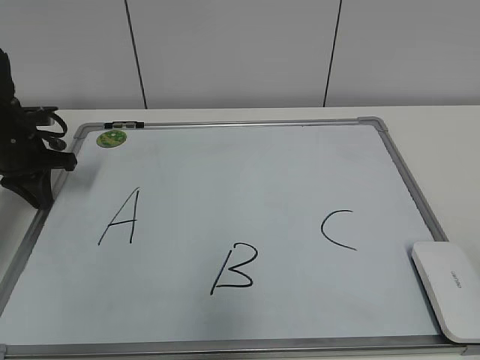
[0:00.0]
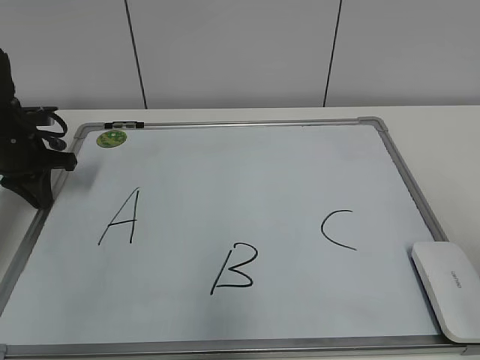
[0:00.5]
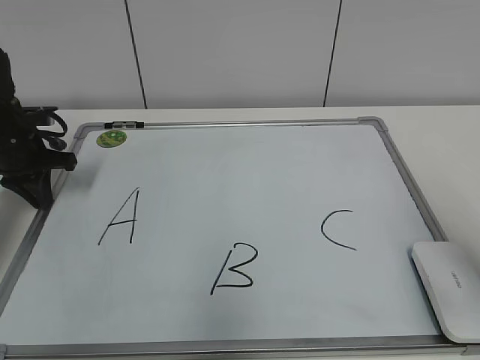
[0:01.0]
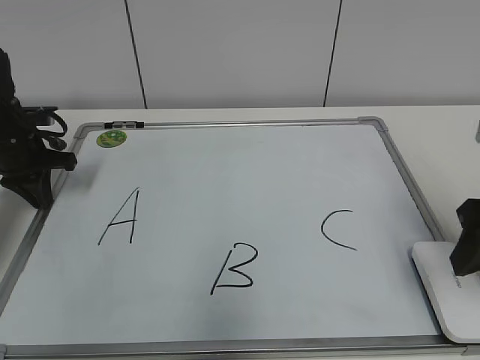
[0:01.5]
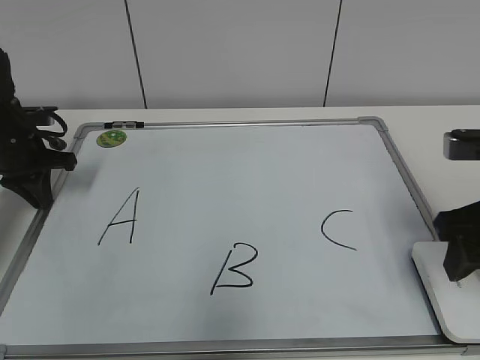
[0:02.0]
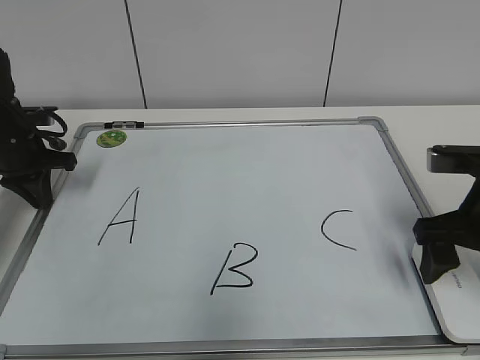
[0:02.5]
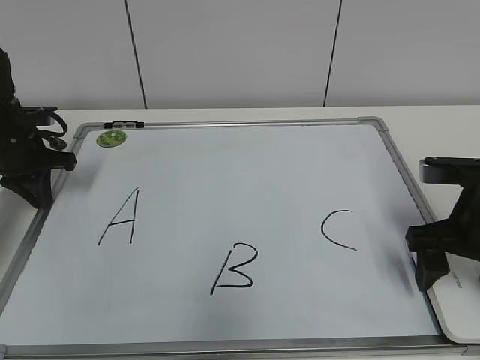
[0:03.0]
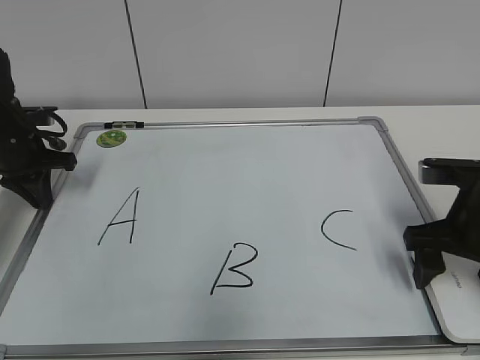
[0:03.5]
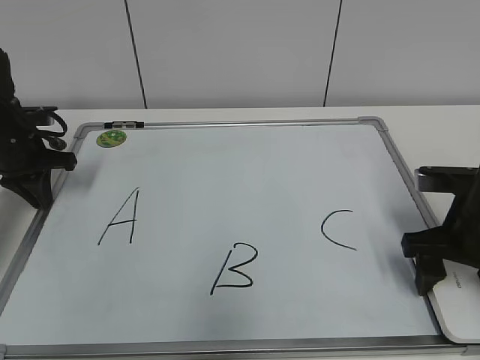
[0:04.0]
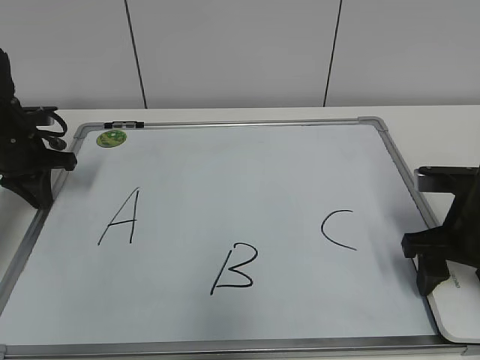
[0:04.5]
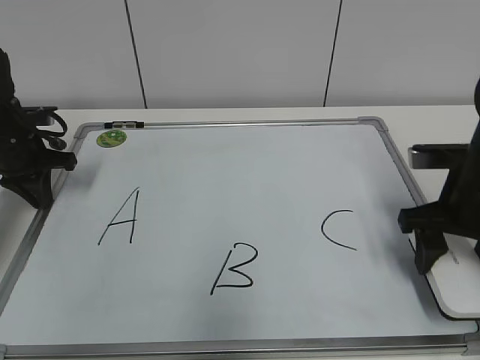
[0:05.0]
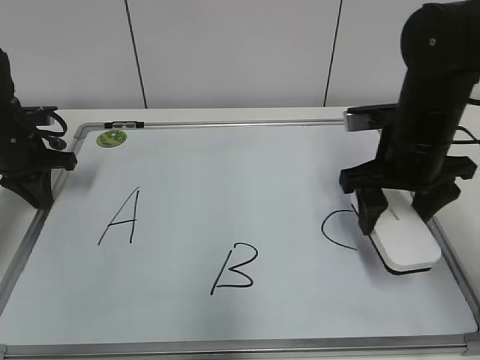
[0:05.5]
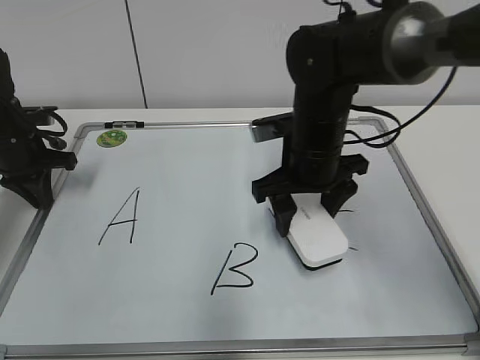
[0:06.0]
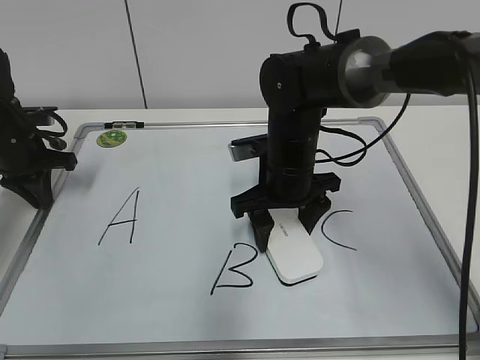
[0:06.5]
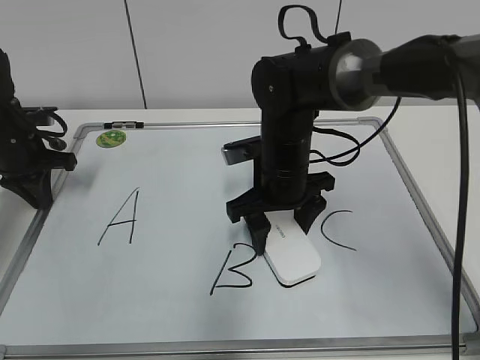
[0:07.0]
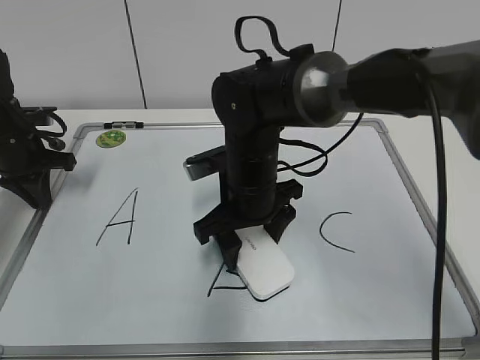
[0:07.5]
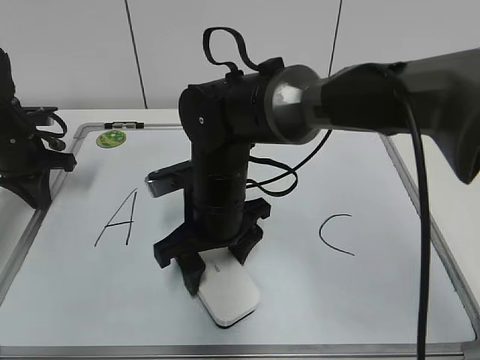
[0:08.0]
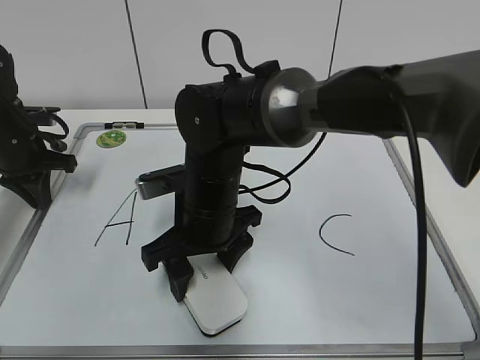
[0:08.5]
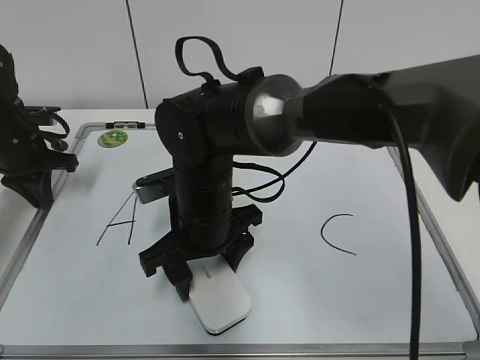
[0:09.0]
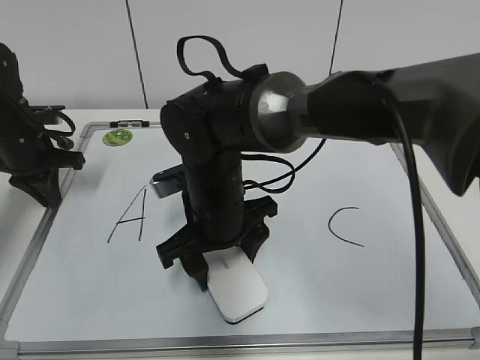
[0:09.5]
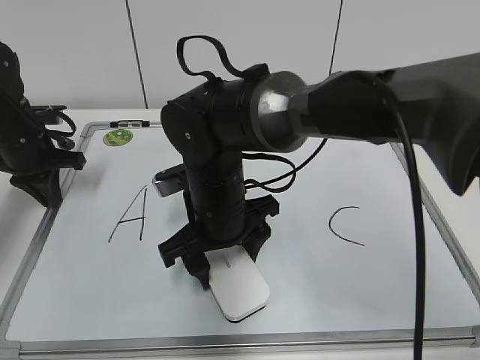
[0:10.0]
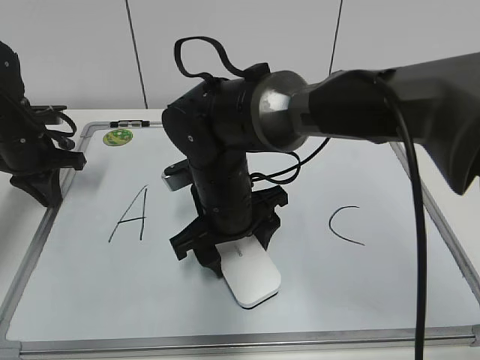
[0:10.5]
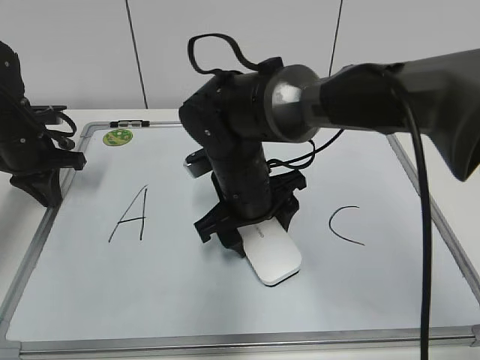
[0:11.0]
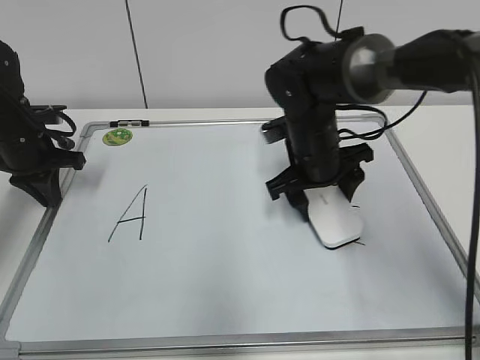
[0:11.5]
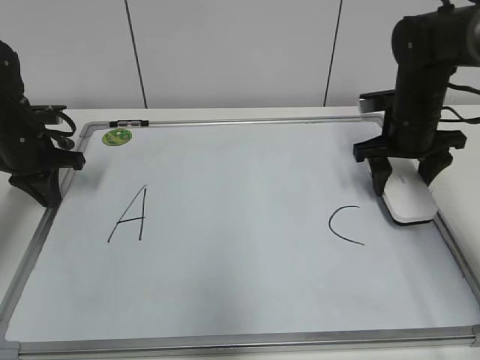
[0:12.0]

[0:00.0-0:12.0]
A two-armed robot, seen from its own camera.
Task of the whole recording: pick up the eraser on the blackboard and erase the letter "B".
Step, 0:00.0 to 0:04.5: Grab the eraser with your right hand.
Step, 0:05.0 to 0:11.0: Erase the letter B with your right hand.
0:00.0 to 0:02.0: The right gripper goes some 25 cm forward.
0:02.0 to 0:04.0: The right gripper shifts about 5 cm downward, and opens up.
0:04.0 to 0:06.0: The right gripper is displaced to the left and forward by about 20 cm, and closes its fingers.
0:06.0 to 0:08.0: The right gripper travels to the left by roughly 10 cm.
0:10.0 to 0:12.0: The right gripper heads to the right and forward, covering about 30 cm.

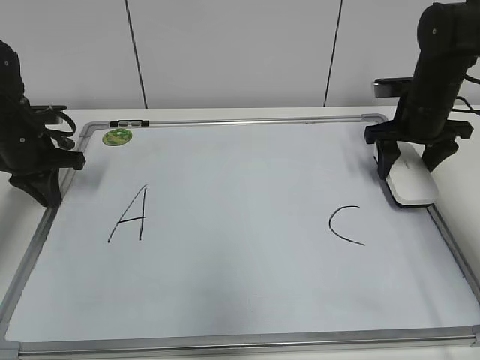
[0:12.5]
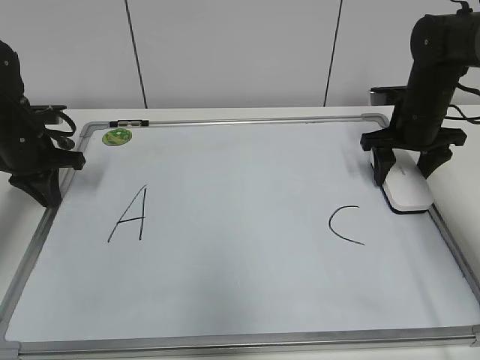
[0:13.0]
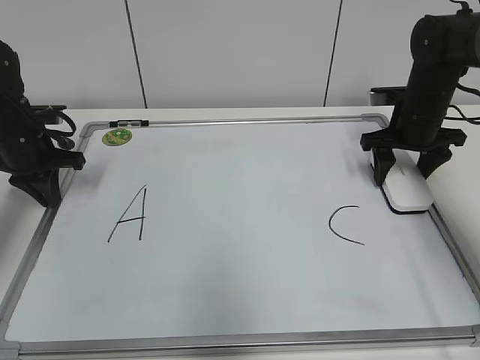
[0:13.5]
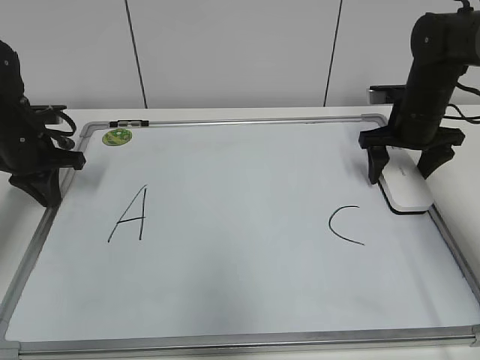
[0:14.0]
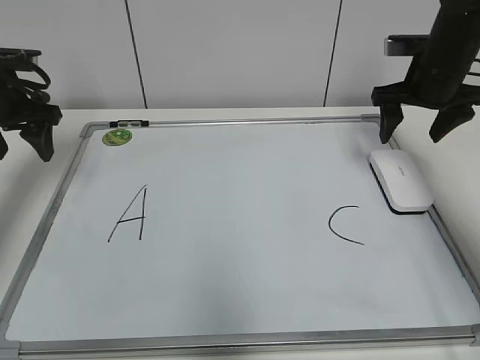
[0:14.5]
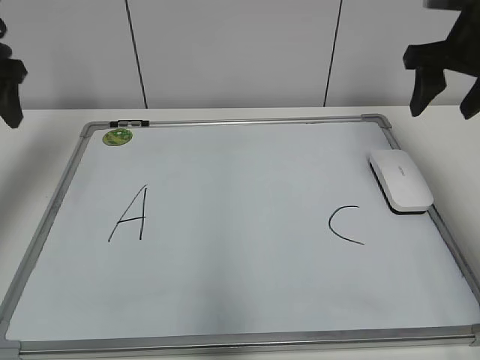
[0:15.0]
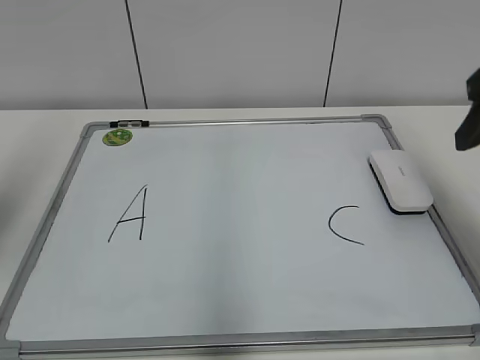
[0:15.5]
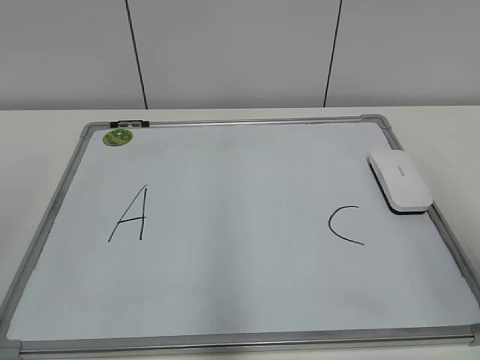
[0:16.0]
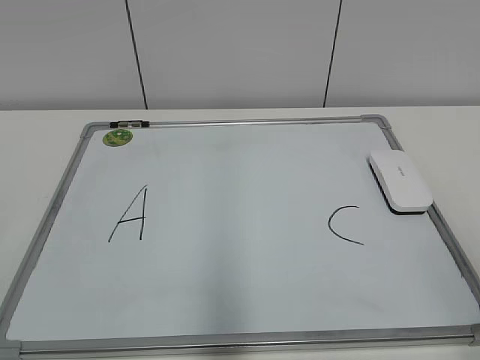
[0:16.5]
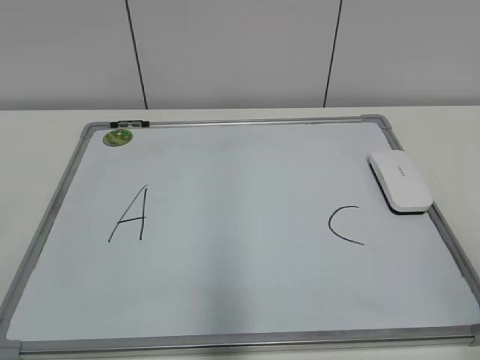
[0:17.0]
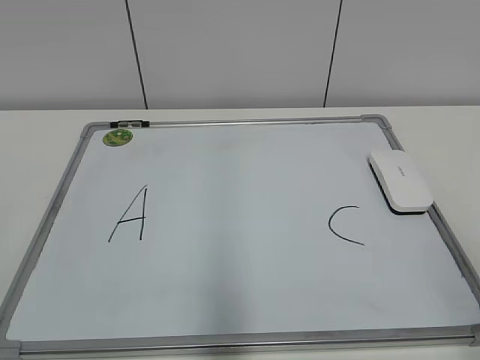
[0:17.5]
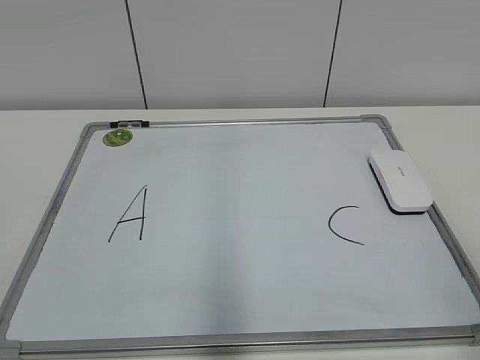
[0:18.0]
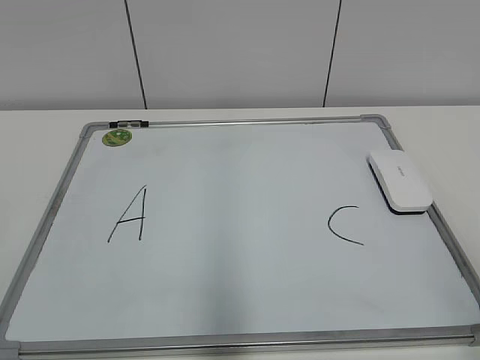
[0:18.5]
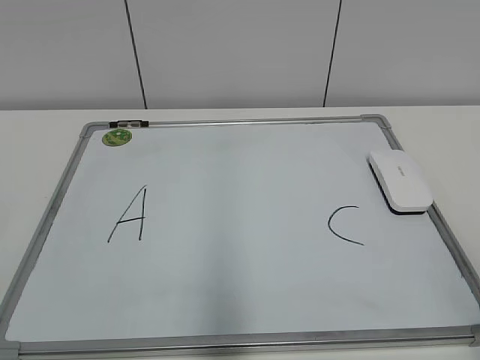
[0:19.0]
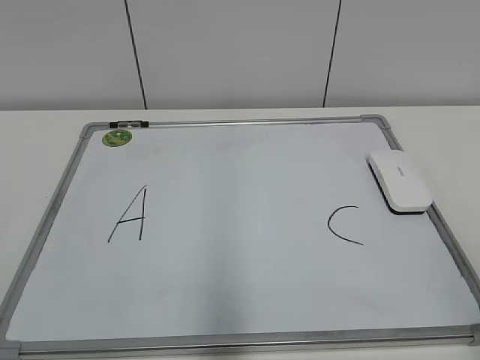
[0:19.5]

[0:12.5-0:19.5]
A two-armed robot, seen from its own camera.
Task of the whole recording: pick up the eraser on the blackboard and erase the letter "B".
0:12.5 to 0:14.5: The grippers both shift upward by about 5 cm. The right gripper opens up. The left gripper opens its fingers.
0:14.5 to 0:16.0: Both grippers move backward, about 35 cm. The right gripper closes its fingers.

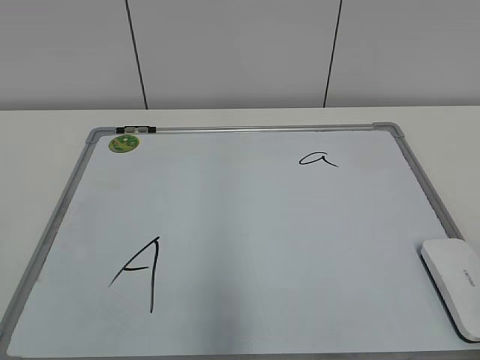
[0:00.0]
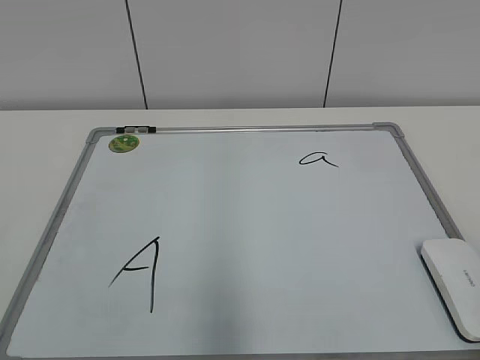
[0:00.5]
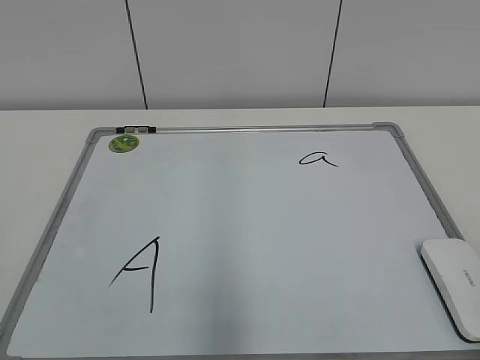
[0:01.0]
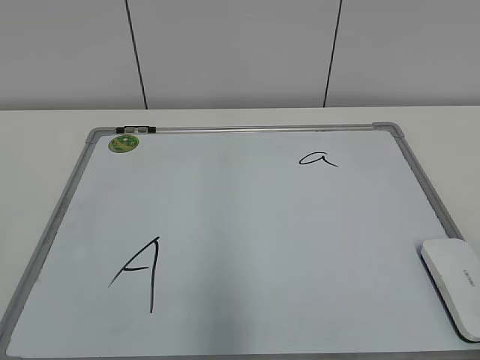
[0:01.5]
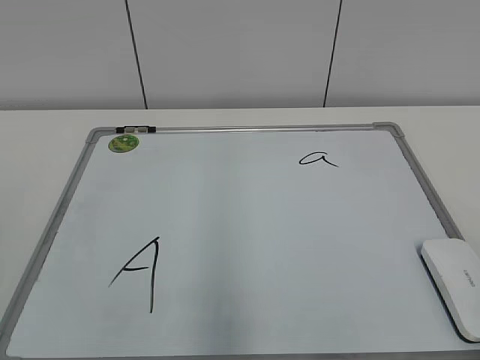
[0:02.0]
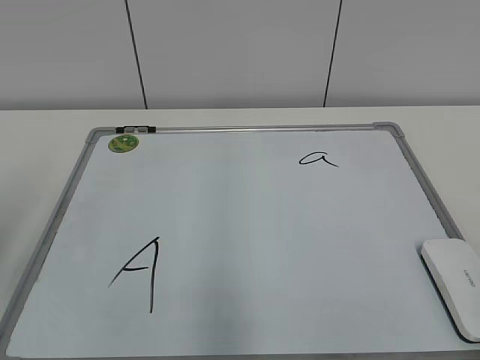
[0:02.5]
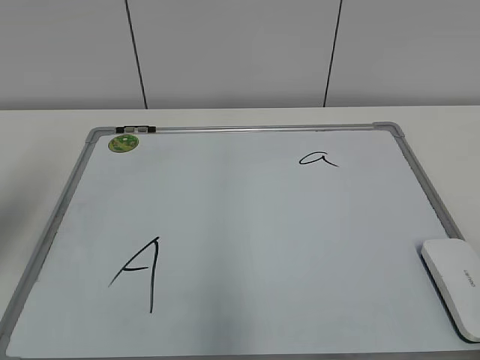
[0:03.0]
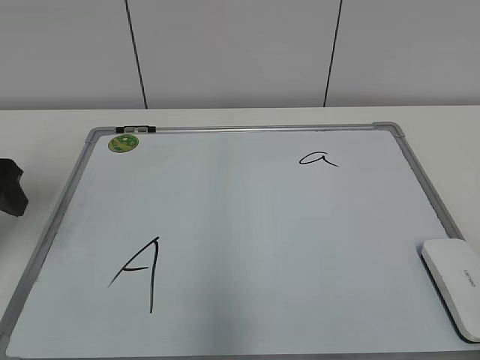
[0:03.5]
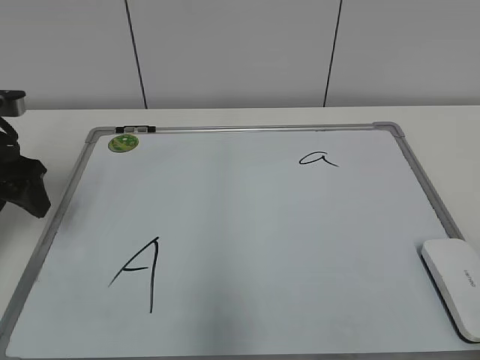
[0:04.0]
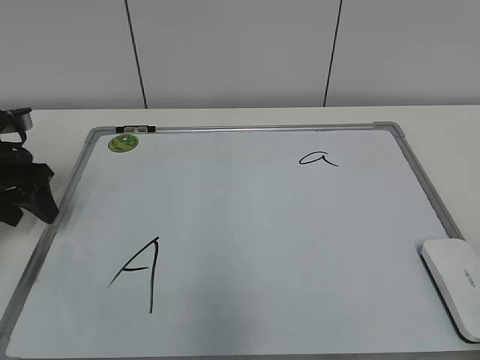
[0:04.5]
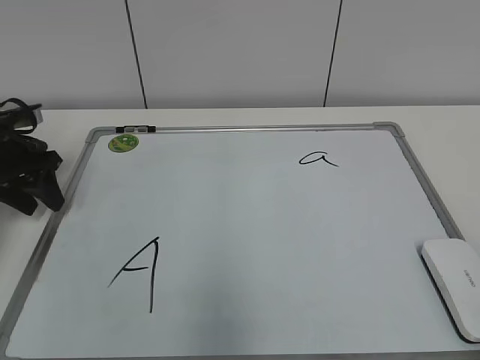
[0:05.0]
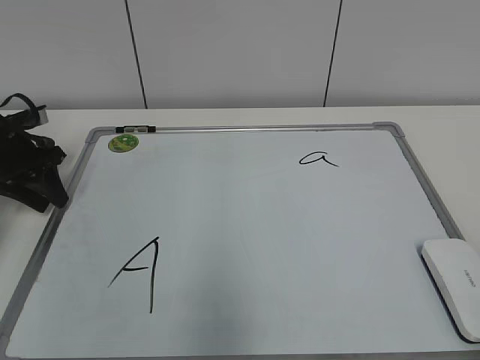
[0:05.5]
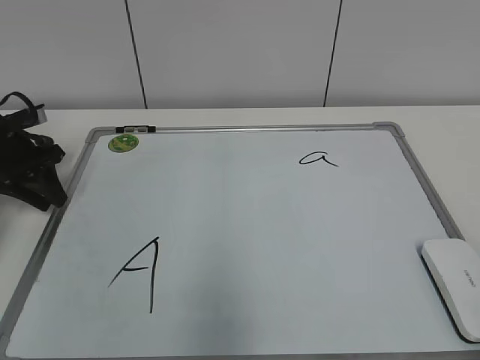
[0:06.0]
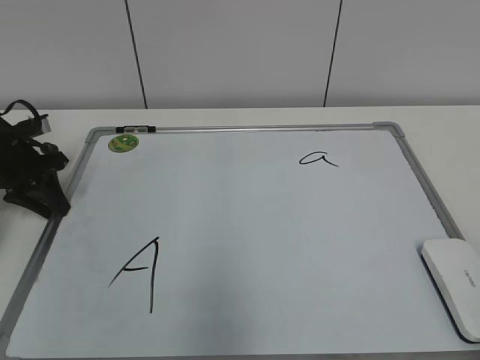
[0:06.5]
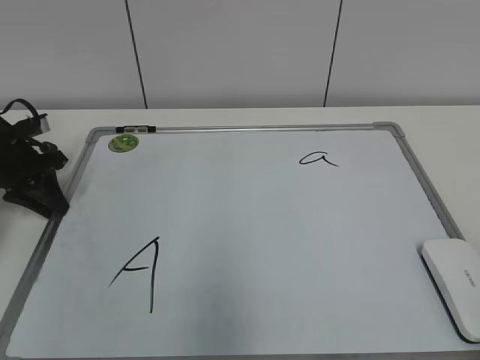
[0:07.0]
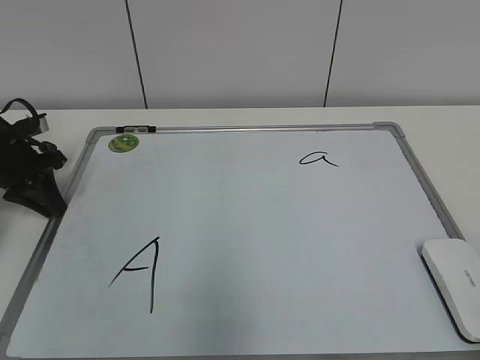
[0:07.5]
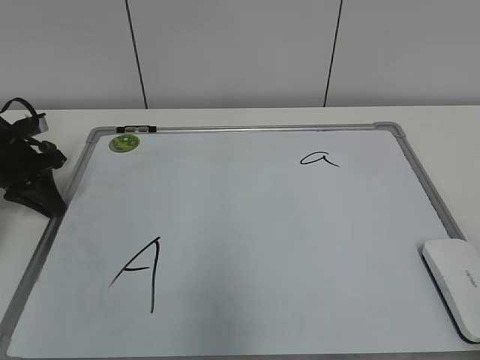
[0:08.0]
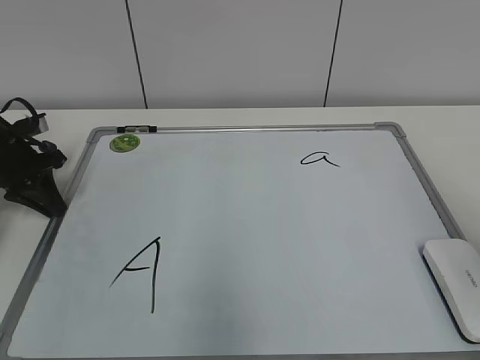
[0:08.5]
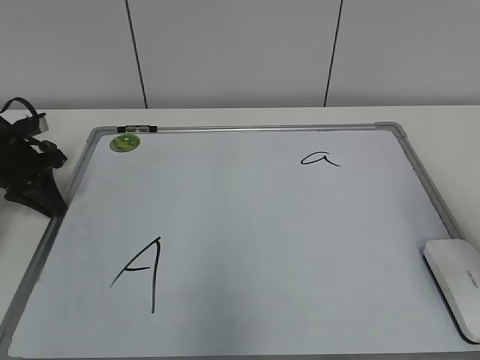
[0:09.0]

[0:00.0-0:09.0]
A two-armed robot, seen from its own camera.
Task of the whole recording: pick up the eraser on the blackboard and erase the letter "a".
Step, 0:00.0 to 0:07.0: Hold the drawing board steady with your left hand.
0:02.0 to 0:04.5: The left gripper shifts some 35 cm forward and downward.
0:04.5 to 0:07.0: The left gripper heads forward, covering some 5 cm, and closes its fingers.
0:07.0 to 0:09.0: The right gripper moves forward, roughly 20 cm.
